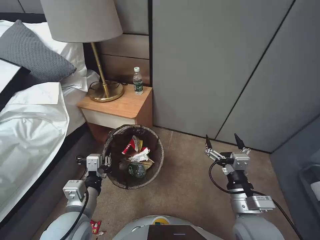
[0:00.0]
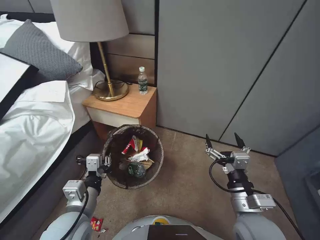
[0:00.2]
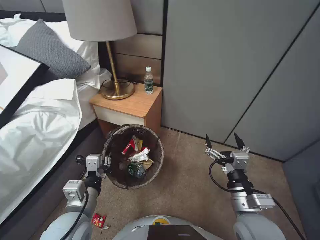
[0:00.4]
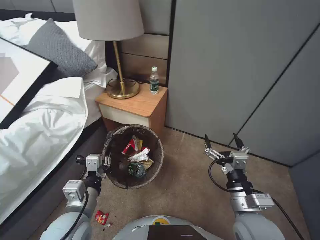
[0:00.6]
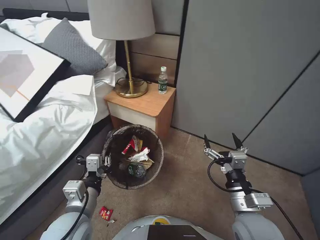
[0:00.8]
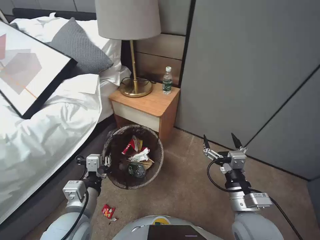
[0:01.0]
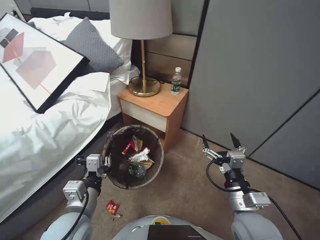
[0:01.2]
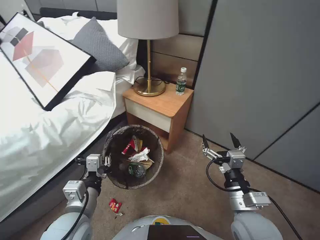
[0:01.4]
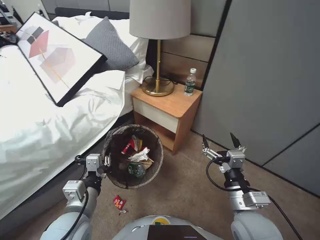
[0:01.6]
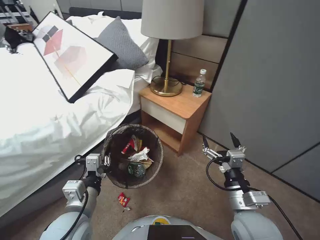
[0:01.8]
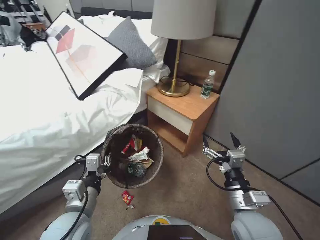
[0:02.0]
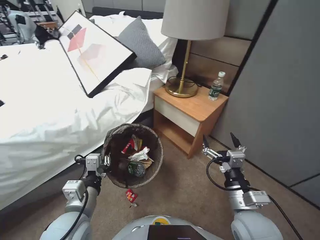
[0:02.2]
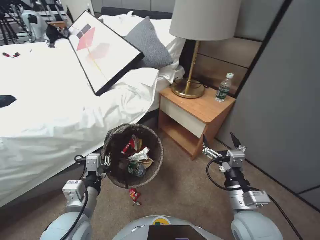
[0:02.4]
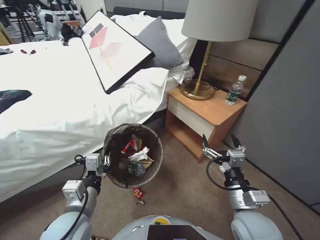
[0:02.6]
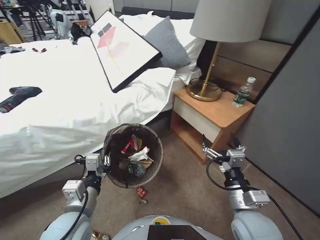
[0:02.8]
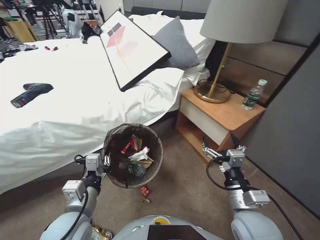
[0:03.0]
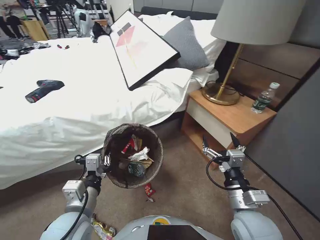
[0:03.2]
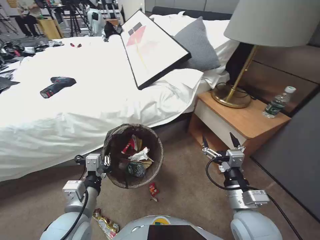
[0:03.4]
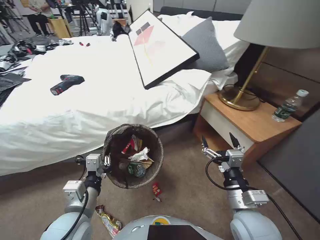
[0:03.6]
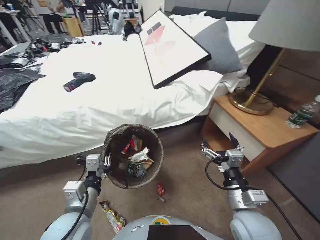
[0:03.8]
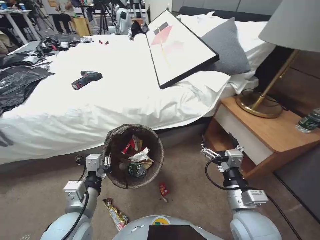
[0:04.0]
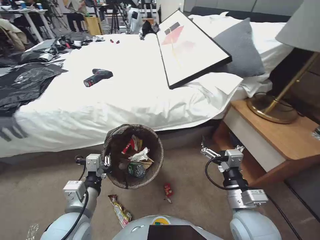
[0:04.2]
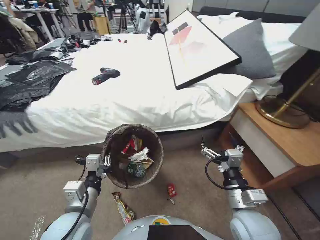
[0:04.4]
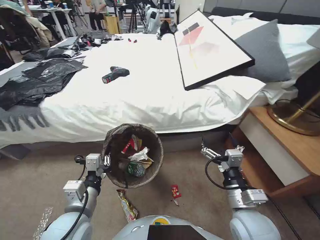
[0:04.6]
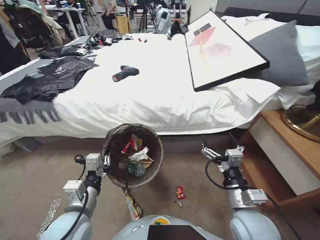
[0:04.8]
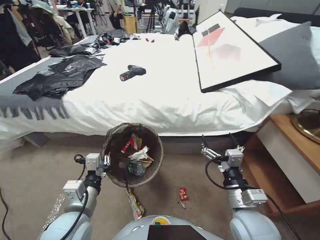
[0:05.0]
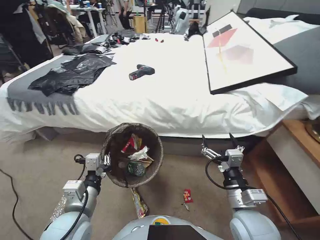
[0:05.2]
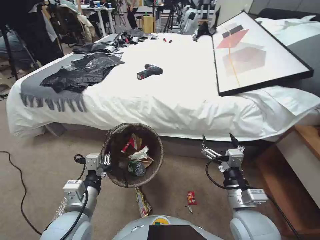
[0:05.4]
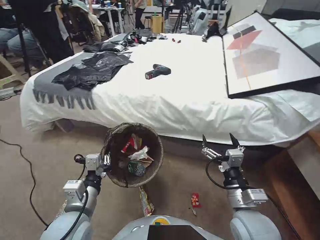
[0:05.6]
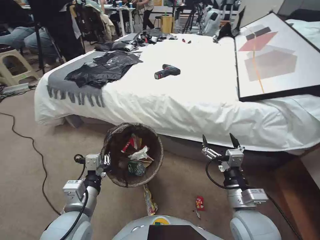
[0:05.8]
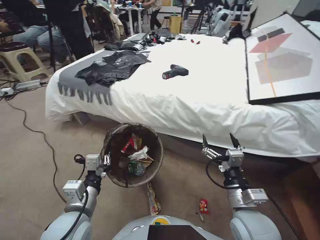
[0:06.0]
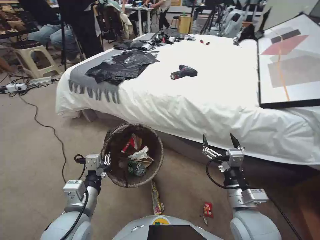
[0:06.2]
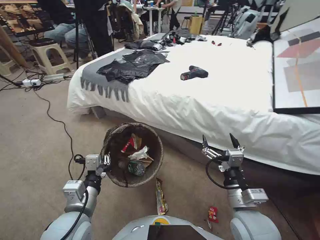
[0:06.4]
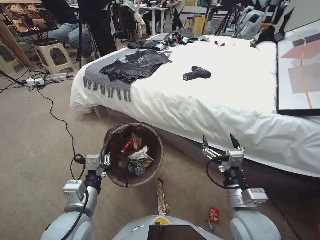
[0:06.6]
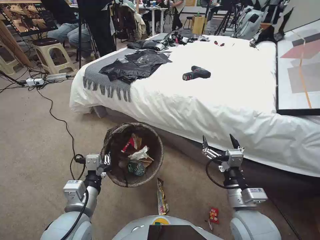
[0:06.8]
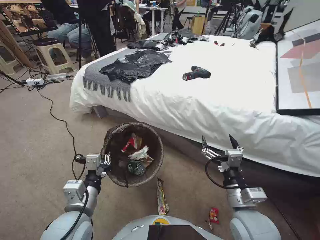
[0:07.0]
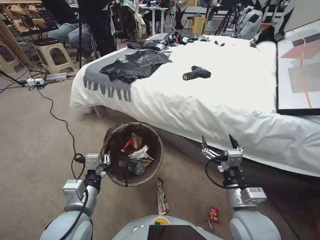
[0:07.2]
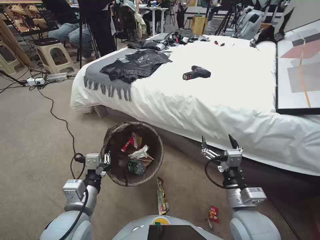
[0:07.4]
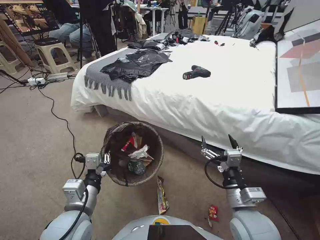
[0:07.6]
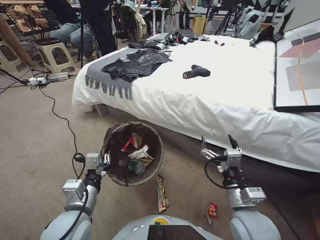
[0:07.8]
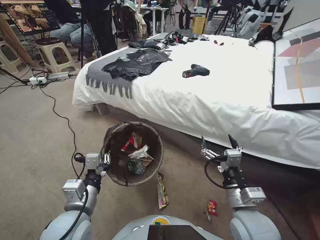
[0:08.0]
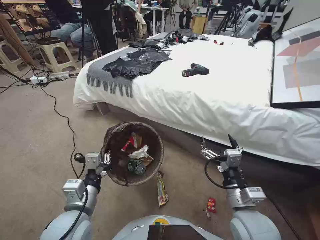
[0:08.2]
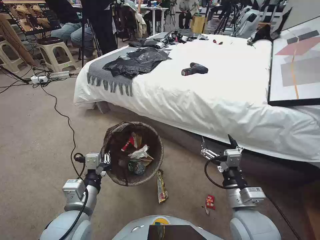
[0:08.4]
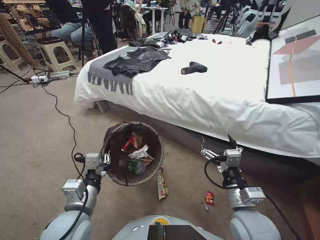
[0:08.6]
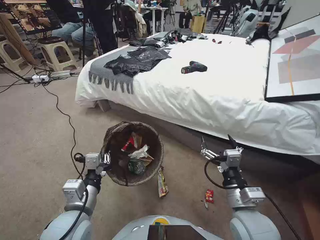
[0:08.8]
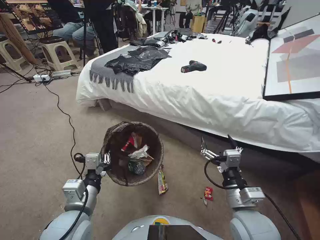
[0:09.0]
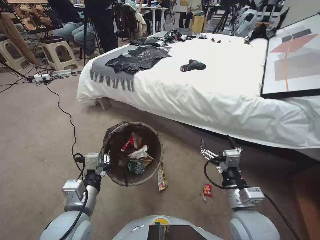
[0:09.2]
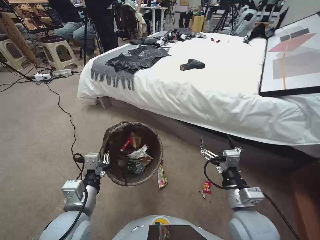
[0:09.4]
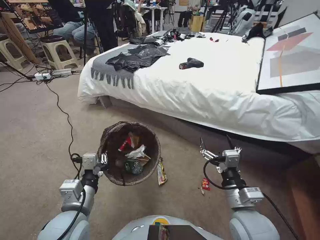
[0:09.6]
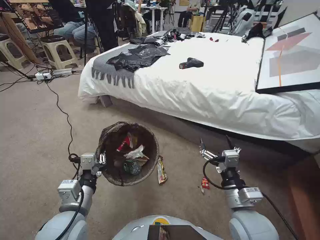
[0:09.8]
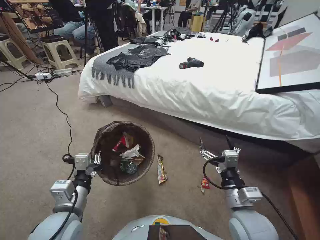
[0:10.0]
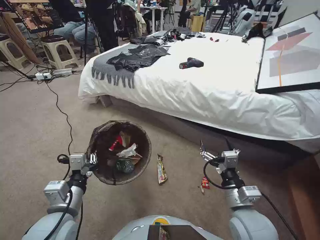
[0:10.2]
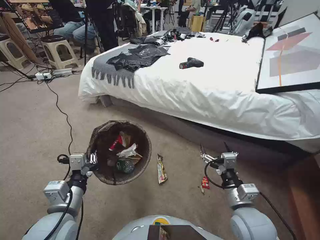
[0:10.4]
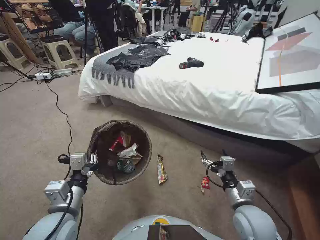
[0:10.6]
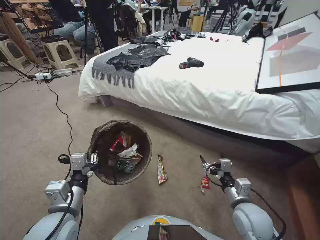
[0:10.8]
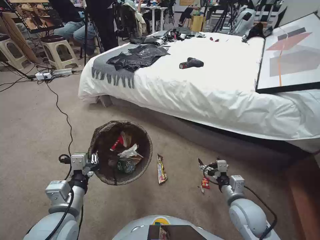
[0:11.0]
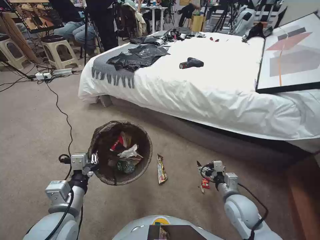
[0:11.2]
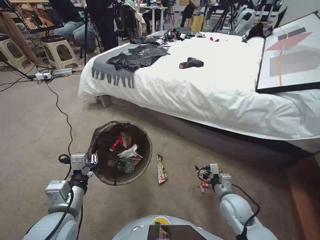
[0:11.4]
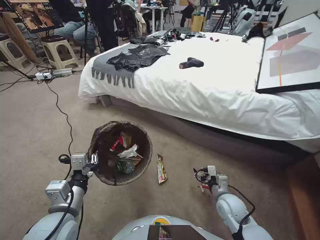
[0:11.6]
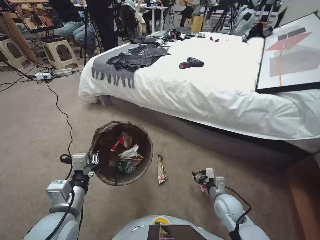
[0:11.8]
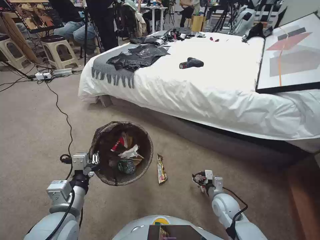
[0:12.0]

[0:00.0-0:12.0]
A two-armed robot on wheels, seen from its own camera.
Task of the whole recording: Pick up the trash bin, then pick up the garbage from the floor and place it into the trash bin.
0:10.4 to 0:12.0: The right gripper is displaced downward and forward by approximately 20 cm.

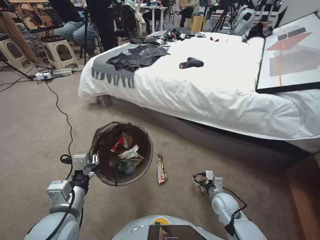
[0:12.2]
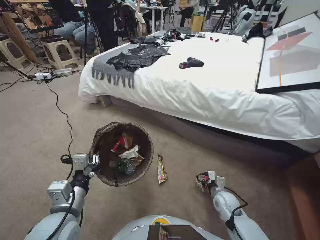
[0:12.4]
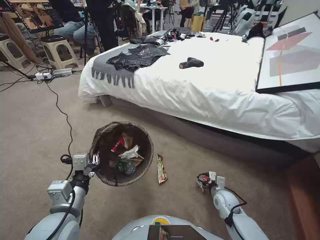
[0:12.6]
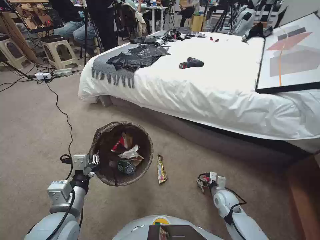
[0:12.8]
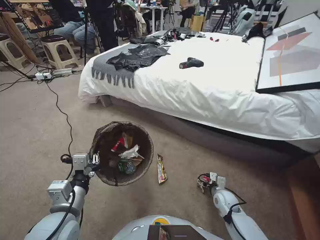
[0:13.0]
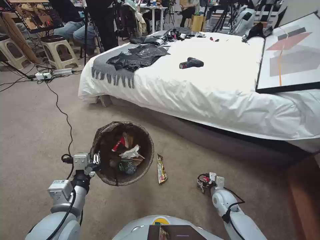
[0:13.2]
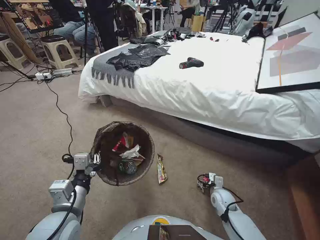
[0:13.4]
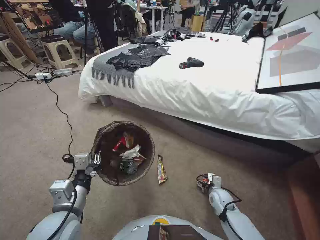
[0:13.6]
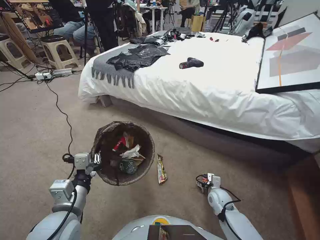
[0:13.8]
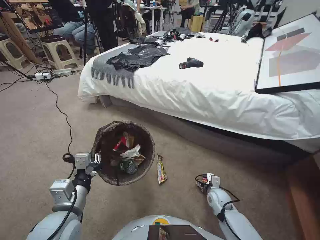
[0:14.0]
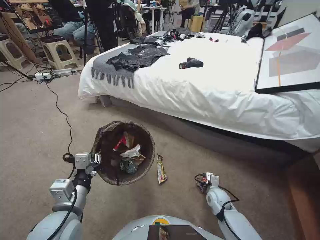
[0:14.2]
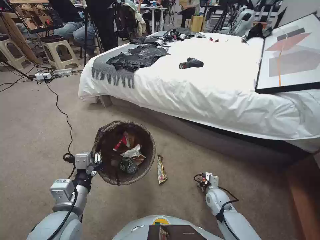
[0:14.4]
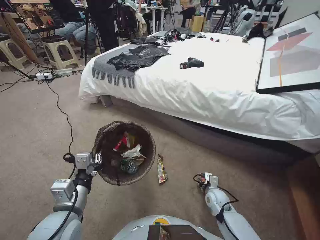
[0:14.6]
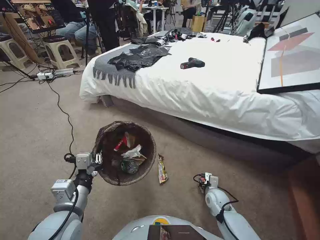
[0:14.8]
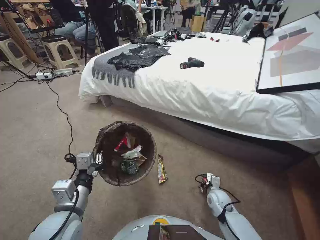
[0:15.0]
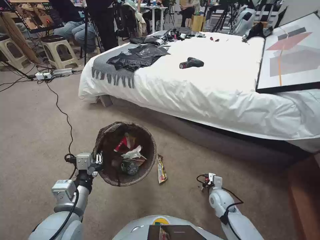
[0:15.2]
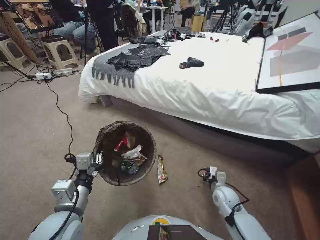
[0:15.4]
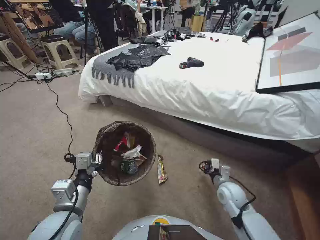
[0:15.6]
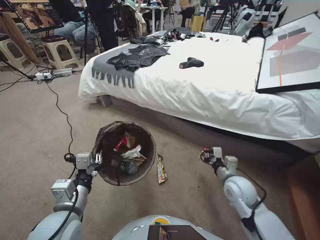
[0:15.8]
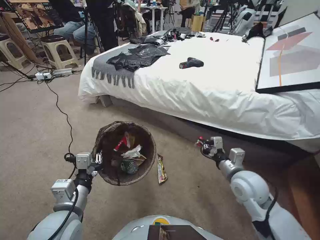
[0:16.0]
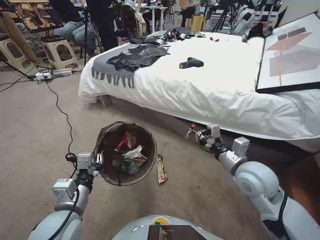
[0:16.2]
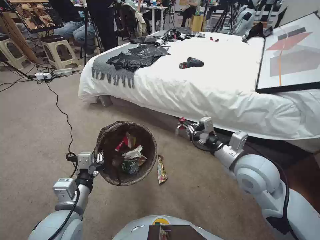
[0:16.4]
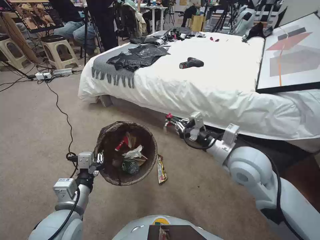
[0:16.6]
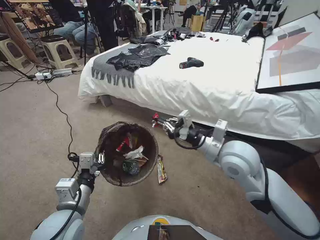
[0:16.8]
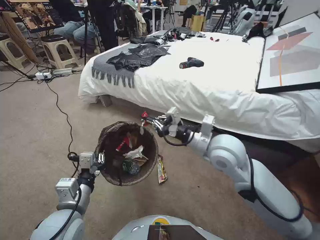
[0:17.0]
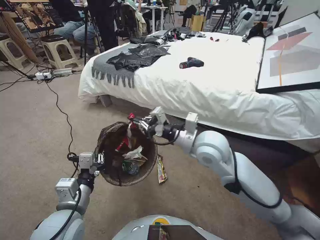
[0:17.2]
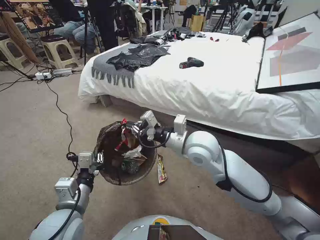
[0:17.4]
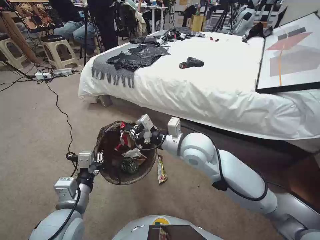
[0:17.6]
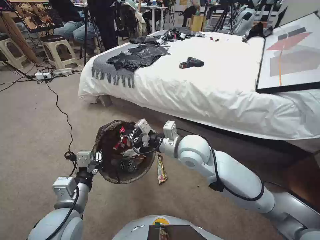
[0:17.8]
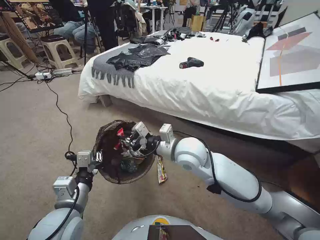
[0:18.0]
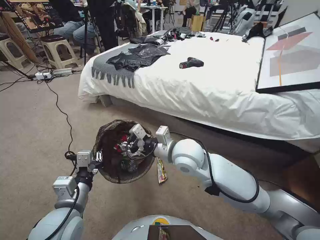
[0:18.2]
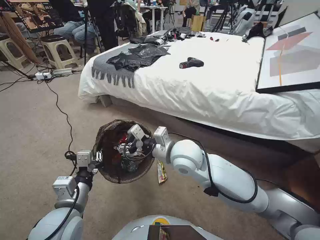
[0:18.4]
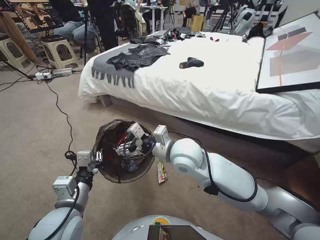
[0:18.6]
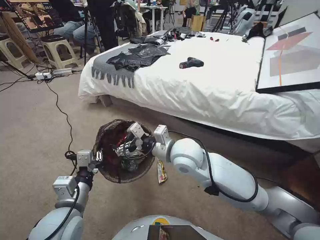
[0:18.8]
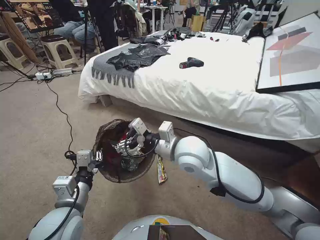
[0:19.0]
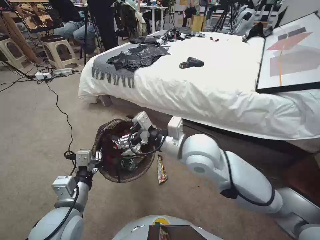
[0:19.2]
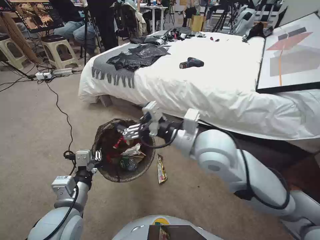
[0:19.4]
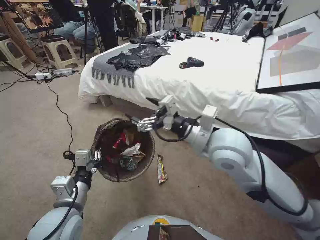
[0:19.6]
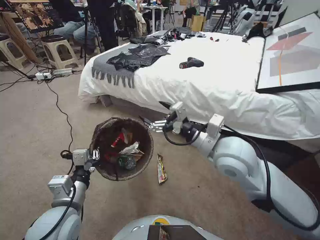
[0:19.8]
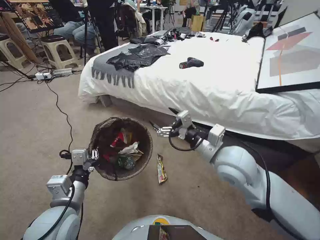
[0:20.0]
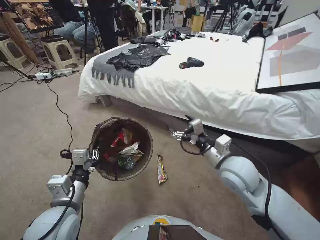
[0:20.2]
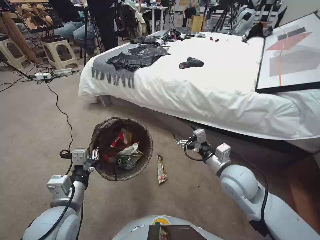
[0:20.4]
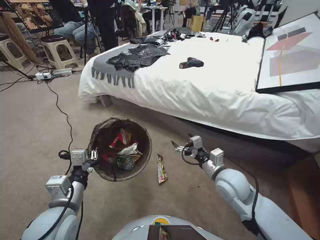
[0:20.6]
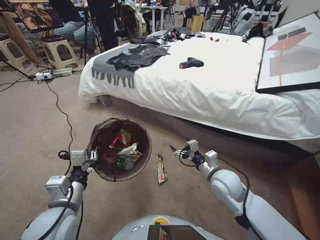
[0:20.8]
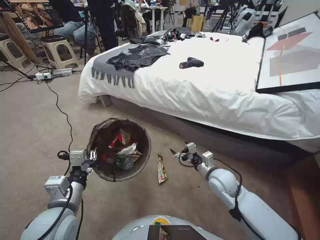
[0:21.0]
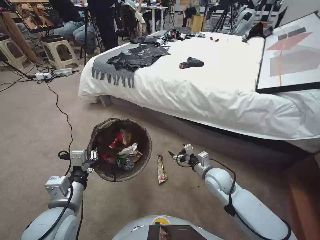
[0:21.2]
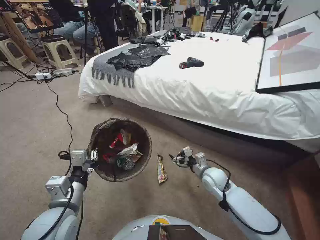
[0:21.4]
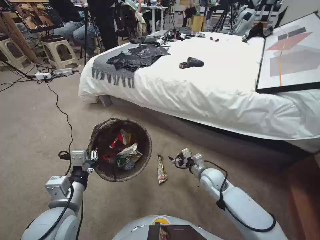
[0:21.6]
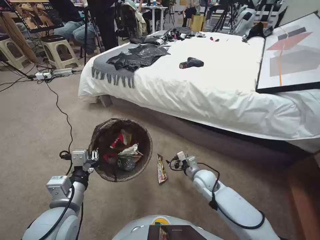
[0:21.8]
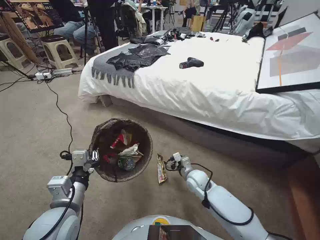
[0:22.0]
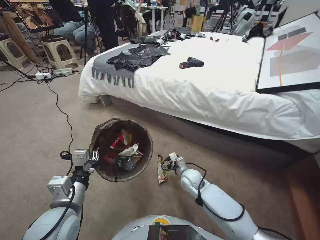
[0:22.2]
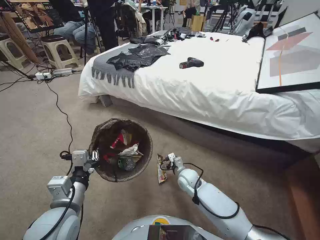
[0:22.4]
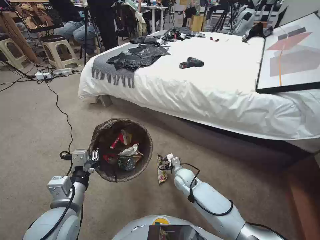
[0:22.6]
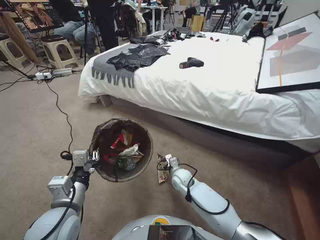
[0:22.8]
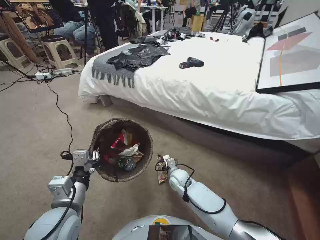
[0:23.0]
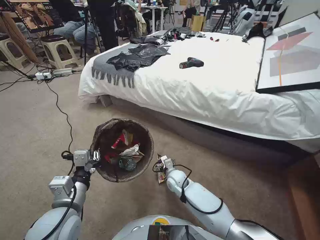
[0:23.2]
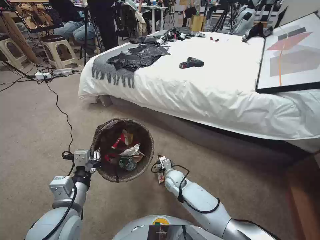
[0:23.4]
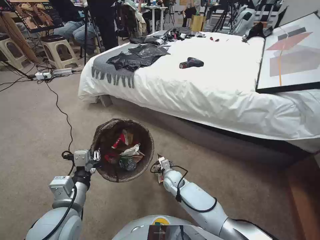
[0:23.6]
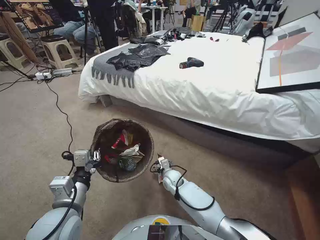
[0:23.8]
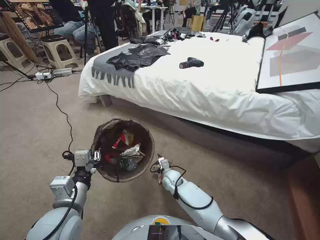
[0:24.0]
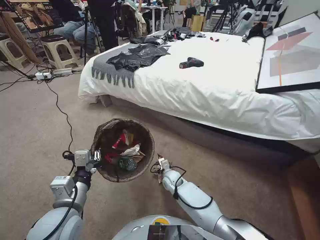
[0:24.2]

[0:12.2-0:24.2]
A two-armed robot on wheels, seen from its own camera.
Task of the whole recording: Pick up the trash bin, then pick up the garbage from the floor and place it into the trash bin.
0:12.2 to 0:13.8: The right gripper shifts by approximately 5 cm.
0:13.8 to 0:15.2: The right gripper closes.
0:15.2 to 0:16.6: The right gripper is displaced upward by roughly 35 cm.
0:16.6 to 0:18.2: The right gripper travels to the left by some 15 cm, and opens.
0:18.2 to 0:19.8: The right gripper goes roughly 10 cm to the right and upward, and opens up.
0:19.8 to 0:21.2: The right gripper travels downward by some 25 cm.
0:21.2 to 0:22.6: The right gripper goes roughly 15 cm to the left and downward.
0:22.6 to 0:24.2: The right gripper travels to the left and downward by some 10 cm.
